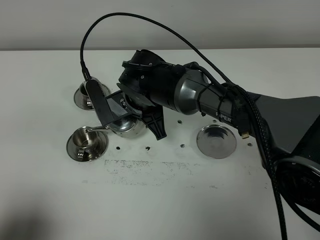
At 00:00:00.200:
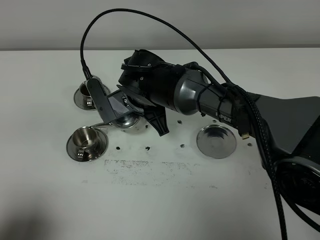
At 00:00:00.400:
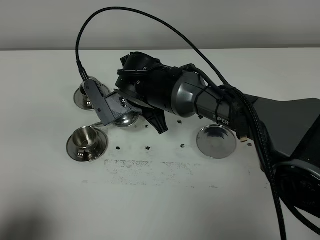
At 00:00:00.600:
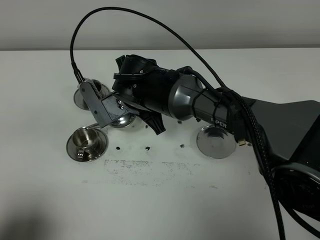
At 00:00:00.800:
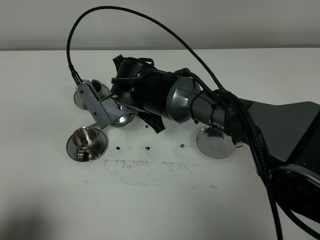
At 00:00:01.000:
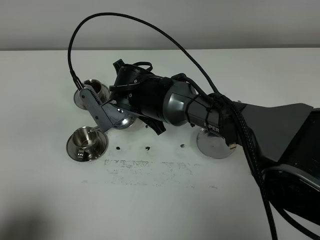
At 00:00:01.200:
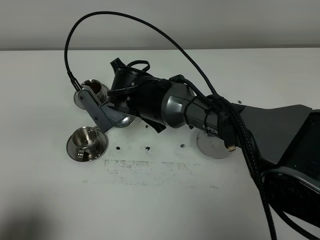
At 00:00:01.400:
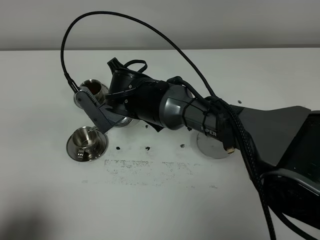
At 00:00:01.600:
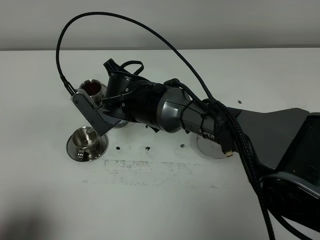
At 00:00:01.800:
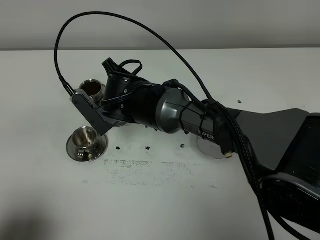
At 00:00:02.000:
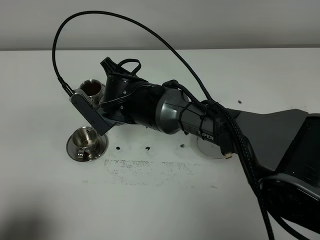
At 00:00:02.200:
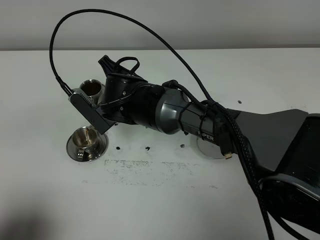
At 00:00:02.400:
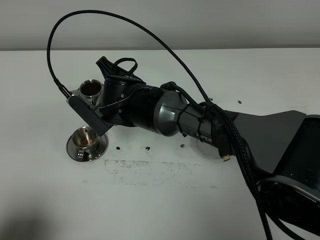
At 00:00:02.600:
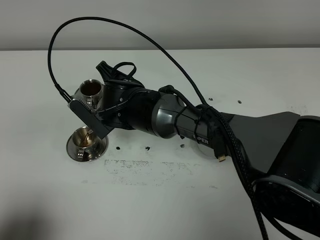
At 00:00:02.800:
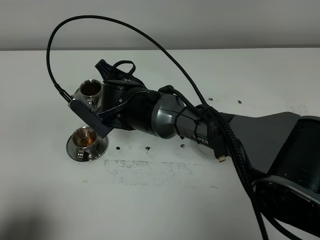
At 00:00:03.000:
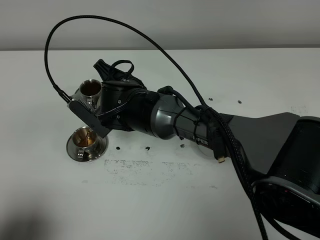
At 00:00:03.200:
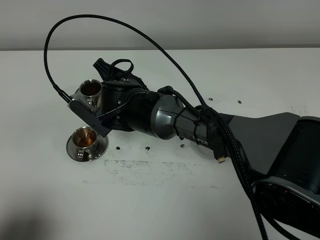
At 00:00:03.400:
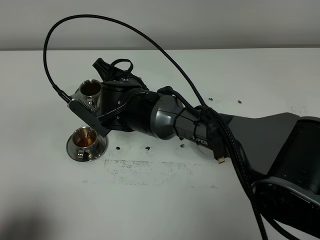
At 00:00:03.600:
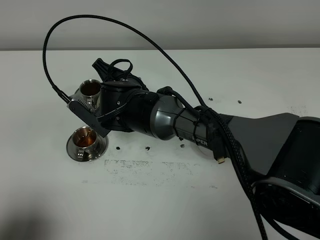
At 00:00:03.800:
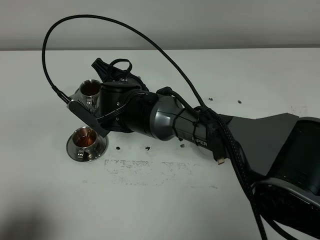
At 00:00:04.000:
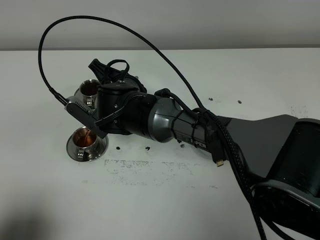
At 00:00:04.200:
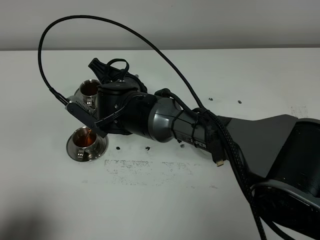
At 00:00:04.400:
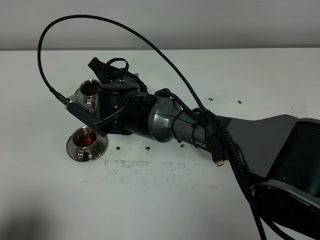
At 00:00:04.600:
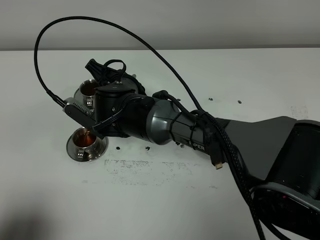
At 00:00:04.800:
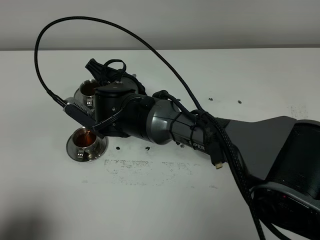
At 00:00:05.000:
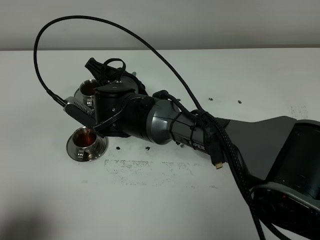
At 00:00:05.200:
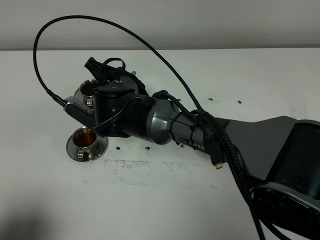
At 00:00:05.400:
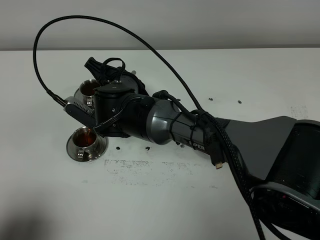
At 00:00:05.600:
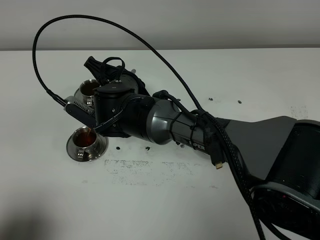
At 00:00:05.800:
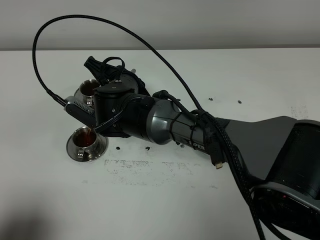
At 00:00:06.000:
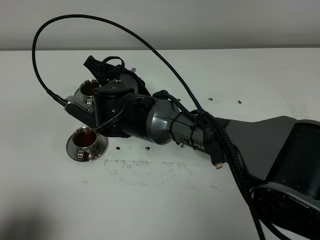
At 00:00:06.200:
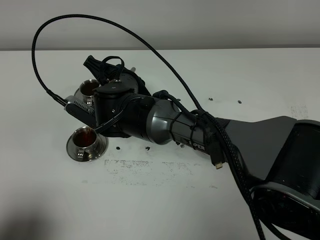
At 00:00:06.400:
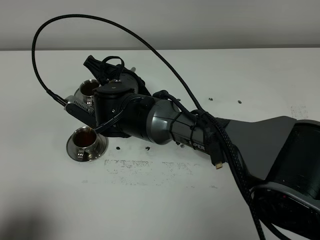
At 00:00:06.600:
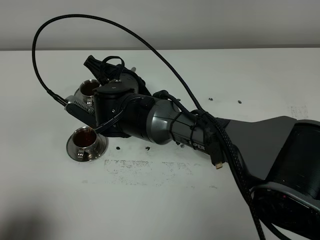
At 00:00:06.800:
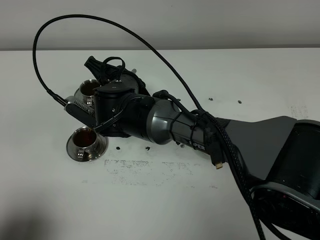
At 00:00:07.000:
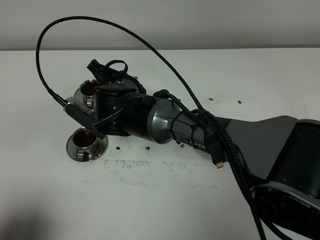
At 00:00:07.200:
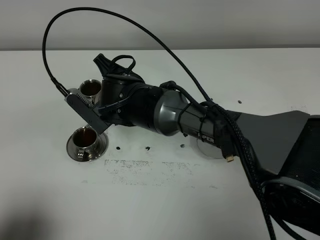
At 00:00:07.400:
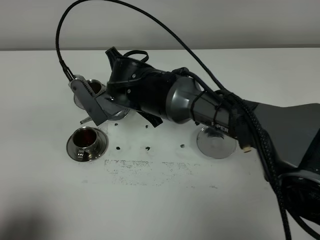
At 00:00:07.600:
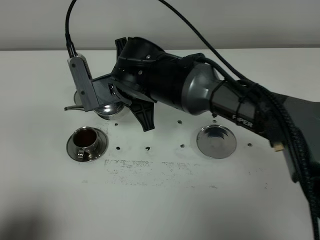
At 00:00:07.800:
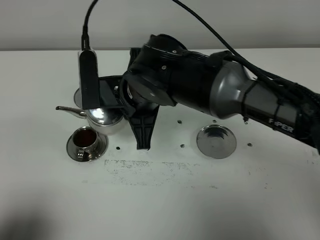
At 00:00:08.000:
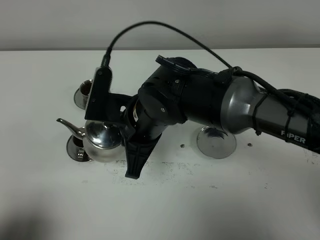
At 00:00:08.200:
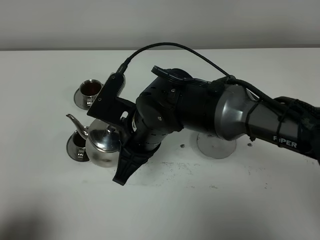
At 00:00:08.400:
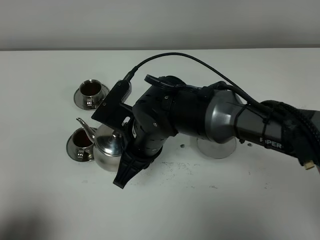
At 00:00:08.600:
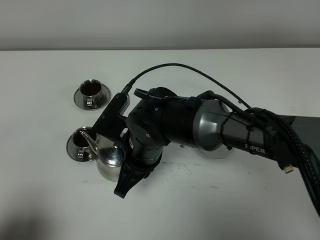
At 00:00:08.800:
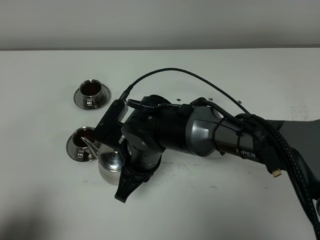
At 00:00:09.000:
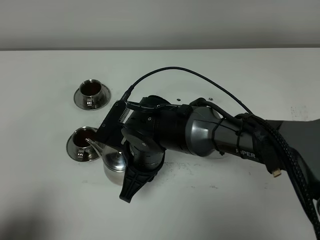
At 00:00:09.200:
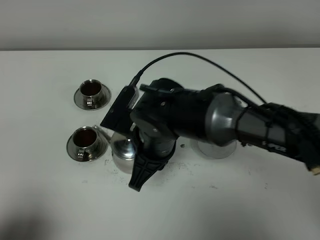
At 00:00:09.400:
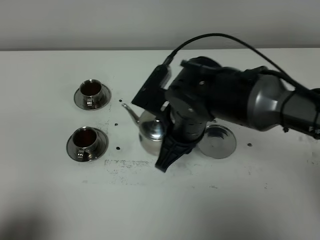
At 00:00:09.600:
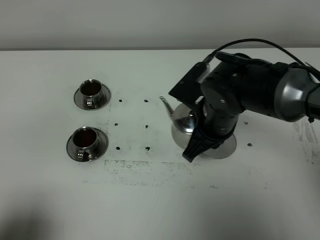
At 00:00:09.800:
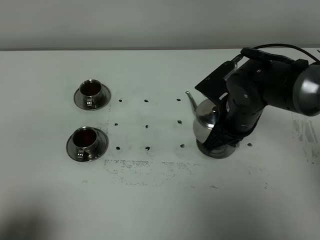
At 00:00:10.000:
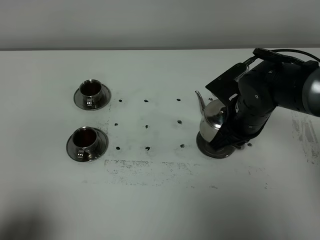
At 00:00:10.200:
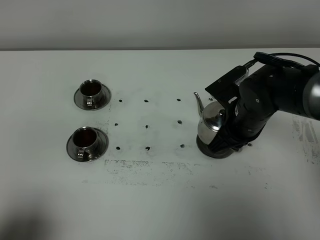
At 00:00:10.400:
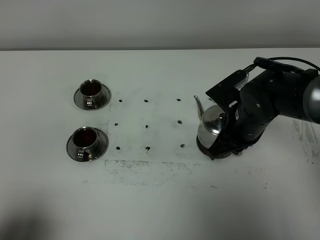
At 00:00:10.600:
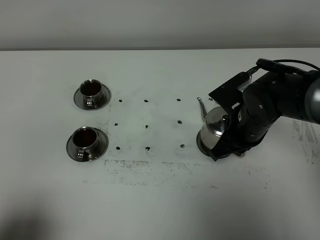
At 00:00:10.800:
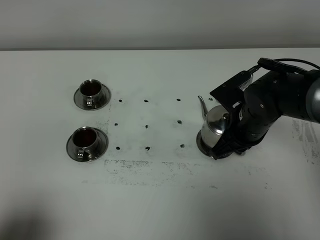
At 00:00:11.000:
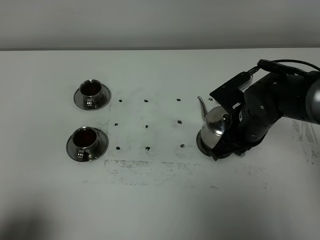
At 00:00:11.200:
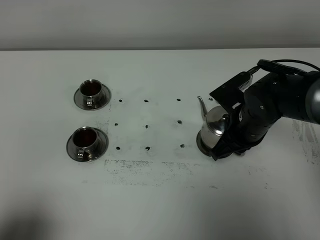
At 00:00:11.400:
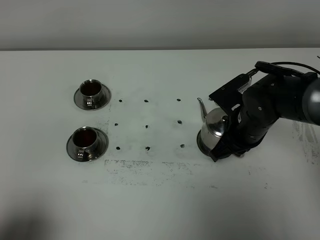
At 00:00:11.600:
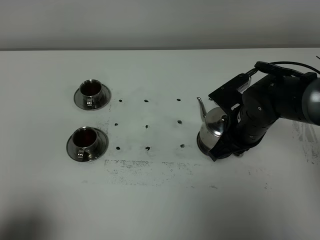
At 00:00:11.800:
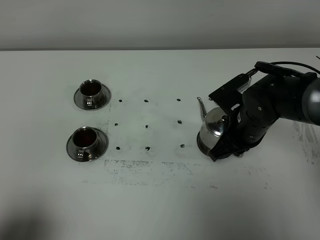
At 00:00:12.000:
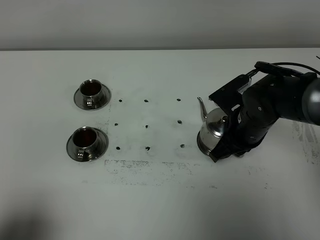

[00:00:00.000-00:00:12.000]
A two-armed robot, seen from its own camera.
Task of the whole recording: grasp the stainless steel teapot and pour the tea into the two stainless steel teacups one by one, put the stainless steel teapot back in its original place.
Step, 00:00:00.000 to 00:00:07.400: Pour tea into the teacup with the right gripper.
00:00:01.600 to 00:00:04.400: There are only small adjustments of the grippers.
00:00:04.400 to 00:00:06.000: Both grippers stay put.
00:00:06.000 to 00:00:07.600: The right gripper moves upward, some 5 cm.
00:00:07.600 to 00:00:09.000: The right gripper heads downward and backward, covering some 10 cm.
00:00:09.000 to 00:00:10.400: The right gripper shifts roughly 20 cm to the right.
00:00:10.400 to 00:00:12.000: Both grippers stay about where they are.

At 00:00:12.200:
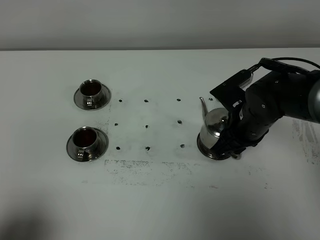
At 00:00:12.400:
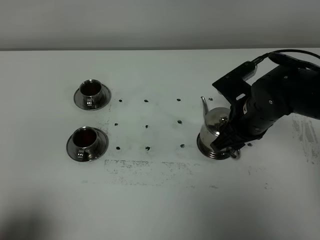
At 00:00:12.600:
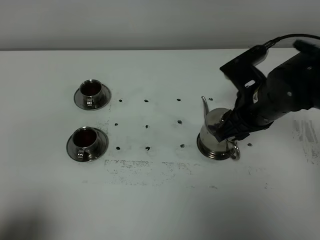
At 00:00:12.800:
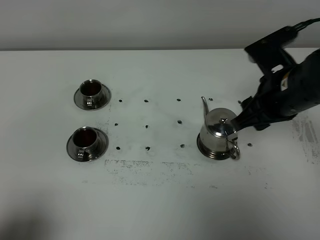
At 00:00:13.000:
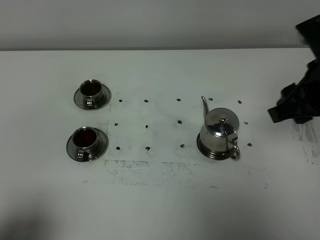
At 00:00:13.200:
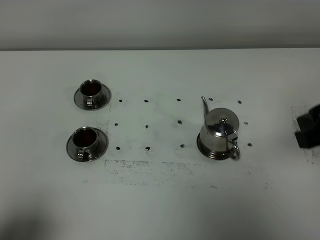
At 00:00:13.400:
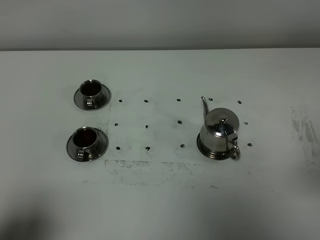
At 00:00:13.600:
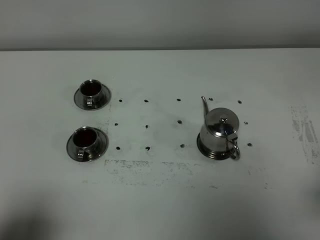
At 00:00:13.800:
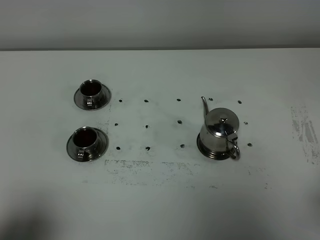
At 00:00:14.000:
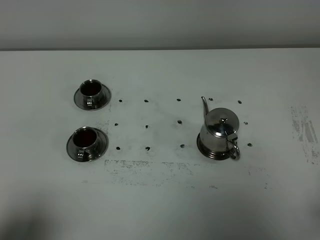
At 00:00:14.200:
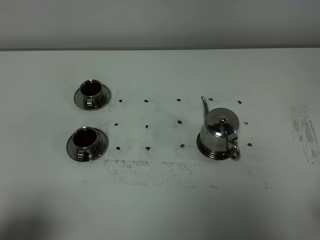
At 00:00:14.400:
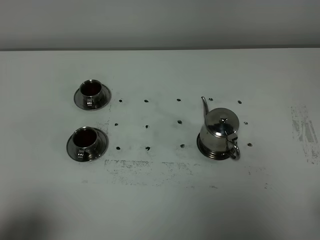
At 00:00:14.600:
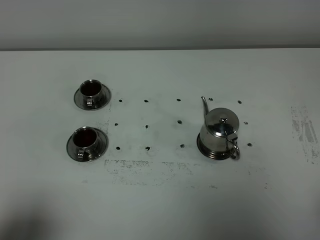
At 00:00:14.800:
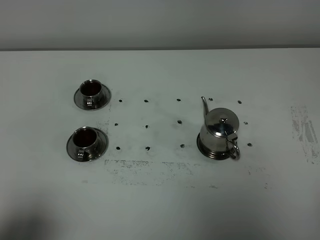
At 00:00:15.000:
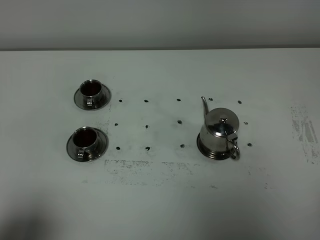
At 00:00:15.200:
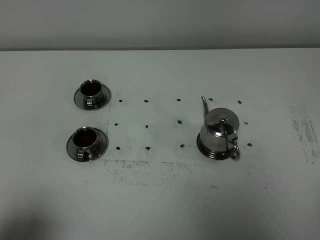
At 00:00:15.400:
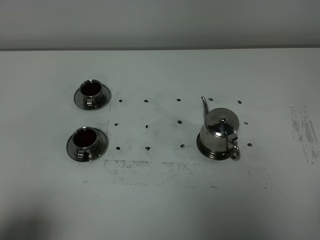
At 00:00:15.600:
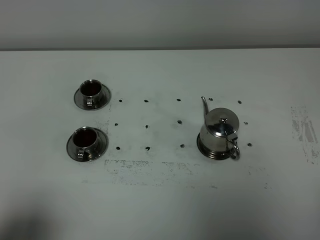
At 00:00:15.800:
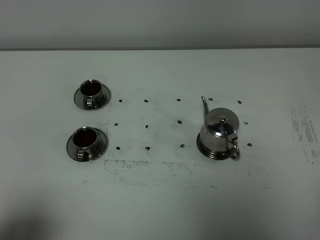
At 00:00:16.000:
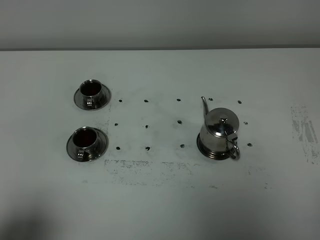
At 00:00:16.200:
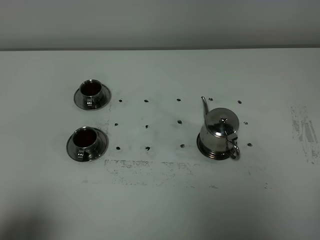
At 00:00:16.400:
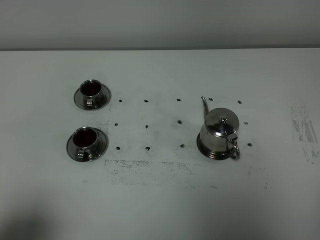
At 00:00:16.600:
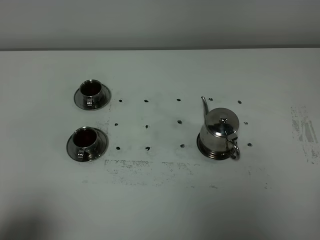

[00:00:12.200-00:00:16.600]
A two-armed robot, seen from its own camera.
Task of the whole recording: grasp the stainless steel teapot and pour the tea into the two stainless steel teacups one by one, put the stainless steel teapot back in its original place.
00:00:12.200 to 00:00:13.600: The right gripper moves backward, upward and to the right, some 30 cm.
00:00:15.200 to 00:00:16.600: The two grippers keep their place.
